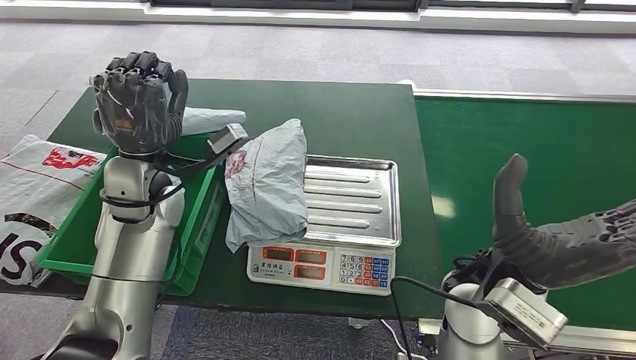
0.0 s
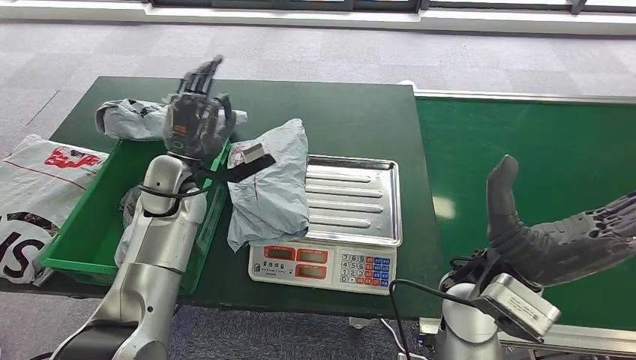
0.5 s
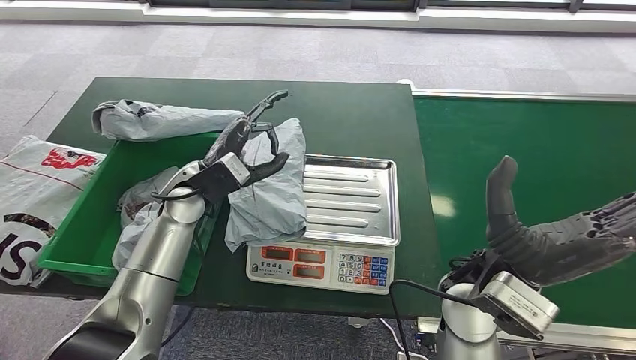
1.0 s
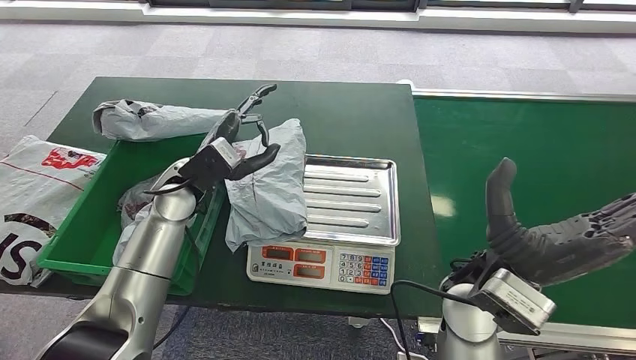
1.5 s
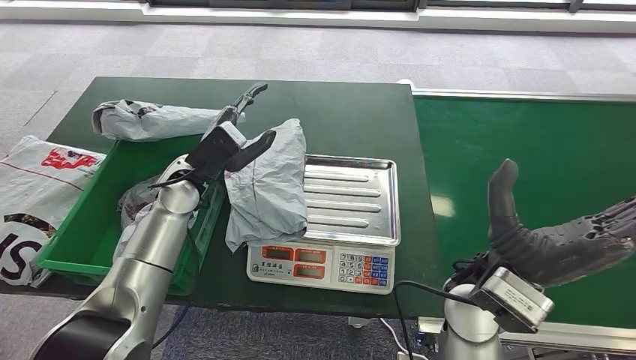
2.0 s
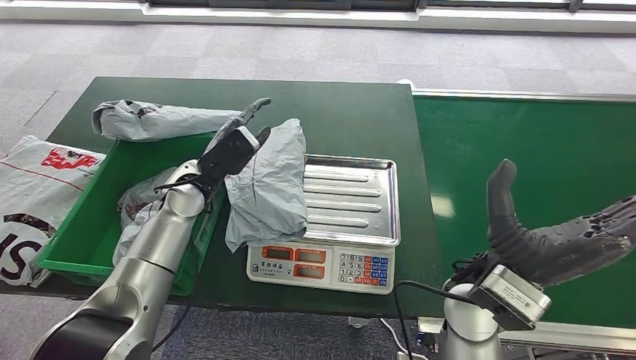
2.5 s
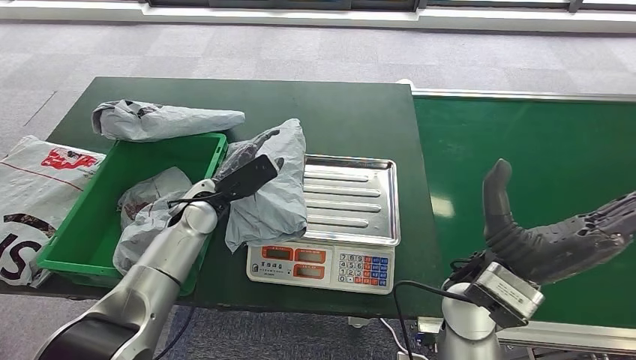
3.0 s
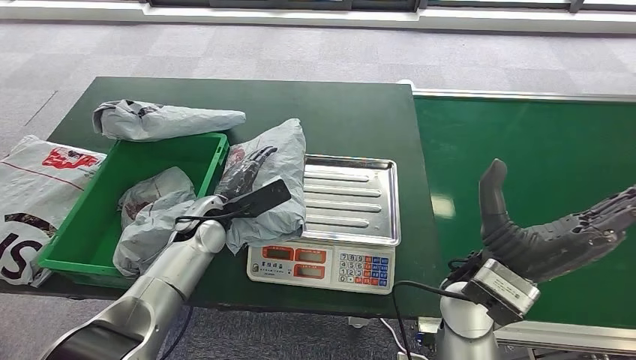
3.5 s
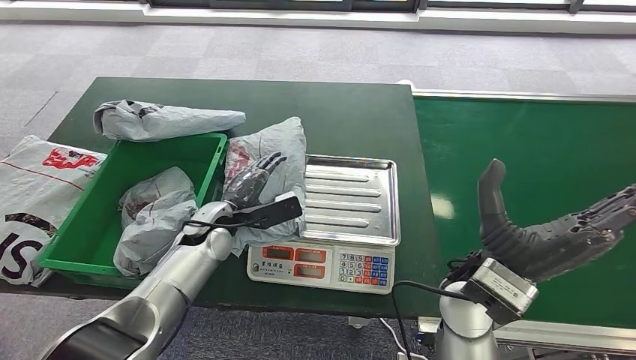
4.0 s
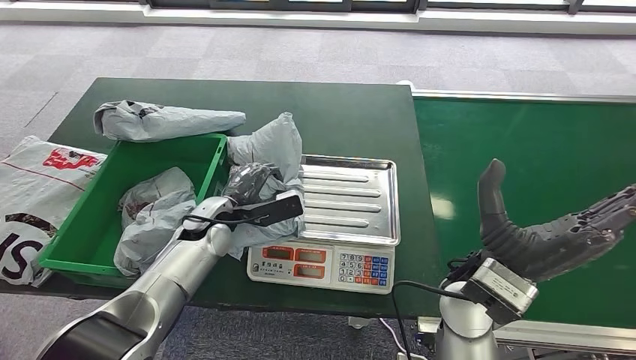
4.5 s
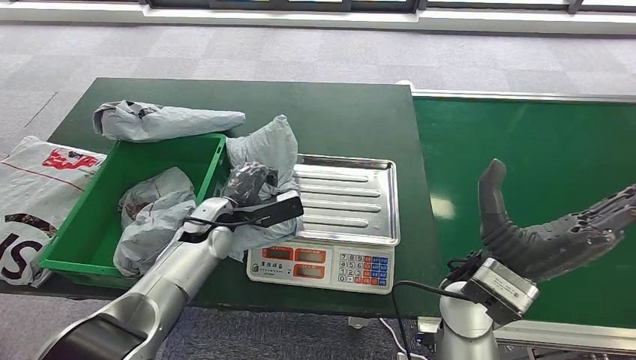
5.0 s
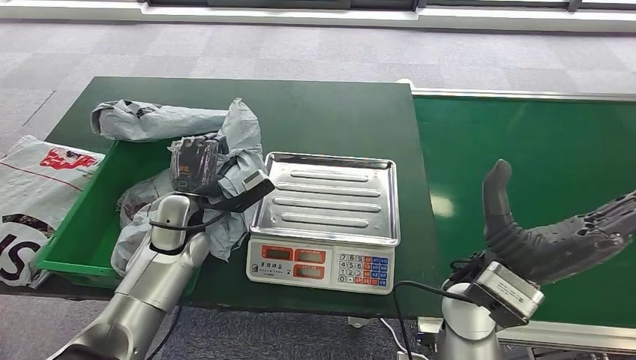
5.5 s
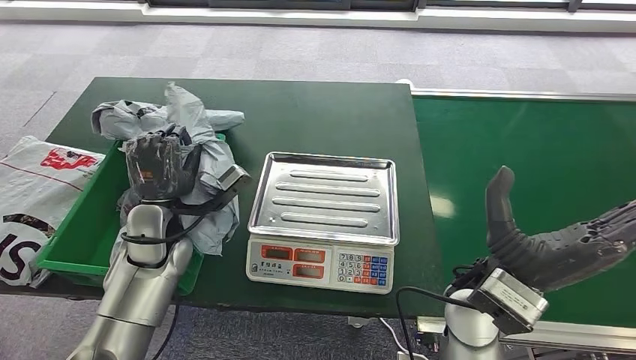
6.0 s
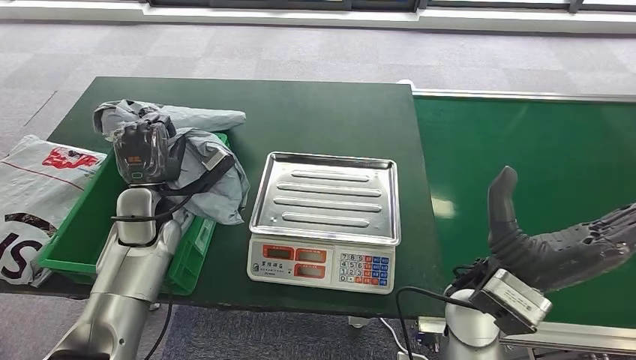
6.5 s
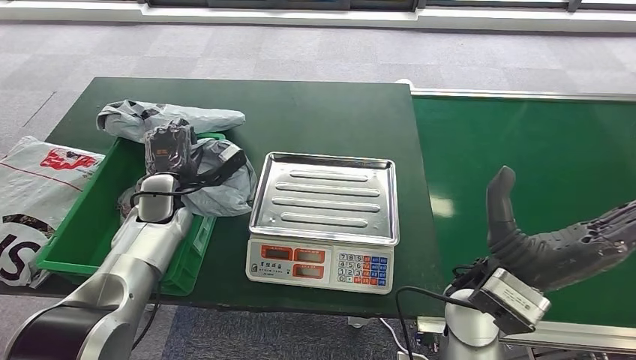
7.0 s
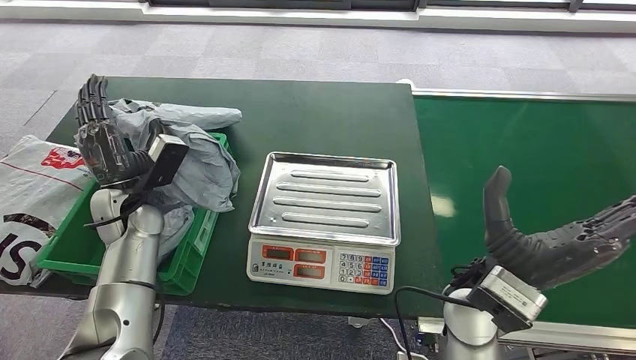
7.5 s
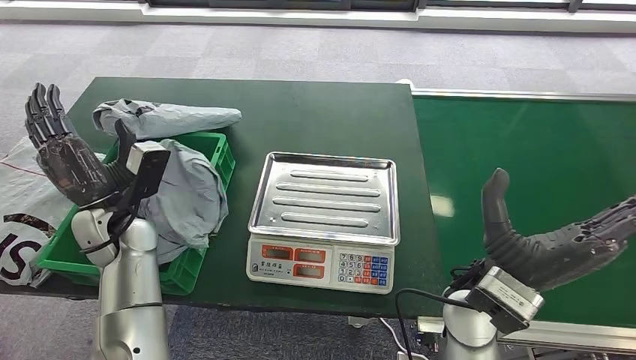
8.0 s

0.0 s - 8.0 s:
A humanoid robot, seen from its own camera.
Step, 4.5 s - 6.0 s: Pick up the package from the inbound machine.
Step, 6.5 s - 8.0 s: Place the package into the parcel locker.
0.0 s - 2.0 s: The left hand goes about 5 cm downward.
2.0 s - 4.0 s: The left hand shifts approximately 10 cm downward.
6.0 s - 8.0 s: The left hand heads to the left, covering some 5 cm, and moves approximately 5 cm forward and comes back.
